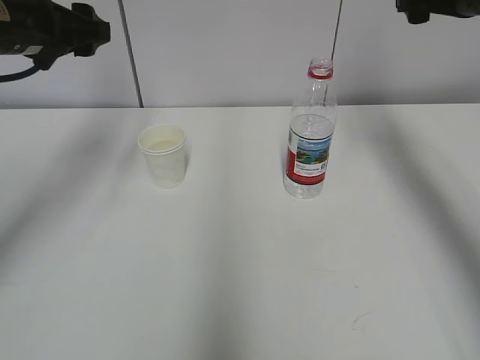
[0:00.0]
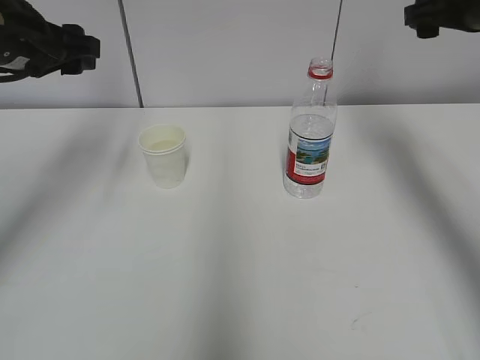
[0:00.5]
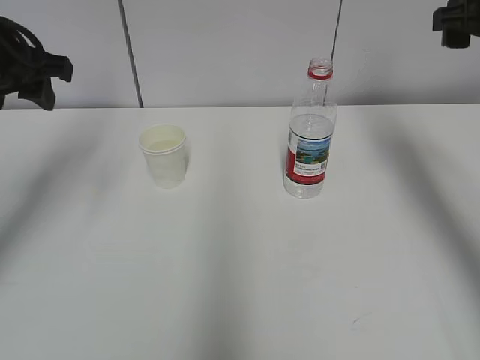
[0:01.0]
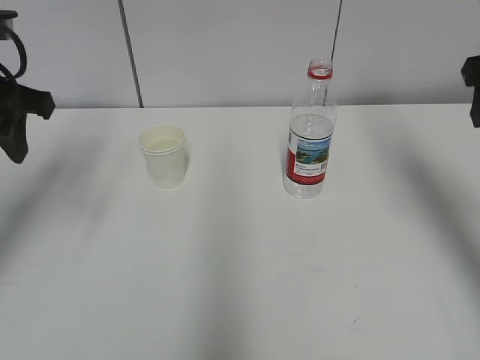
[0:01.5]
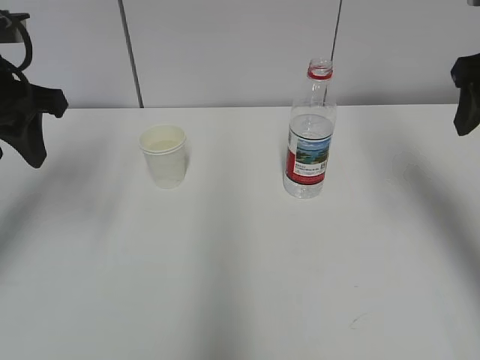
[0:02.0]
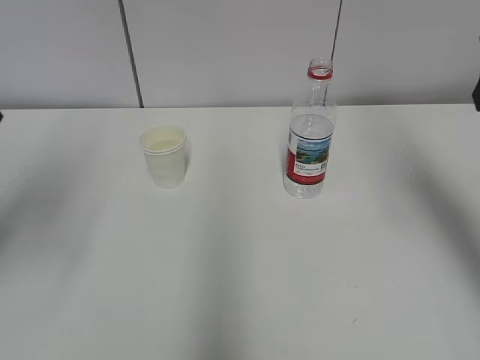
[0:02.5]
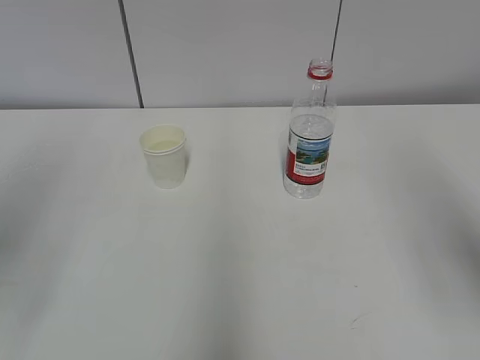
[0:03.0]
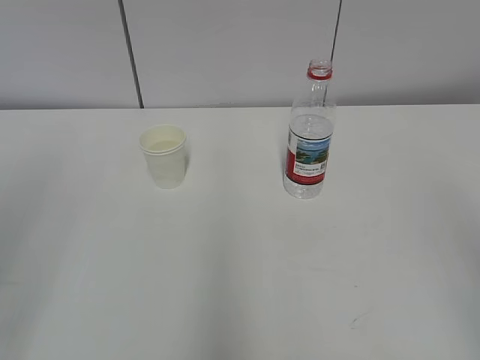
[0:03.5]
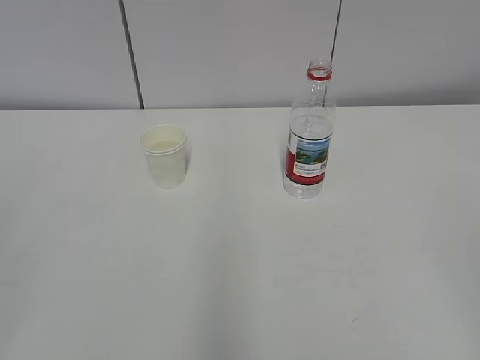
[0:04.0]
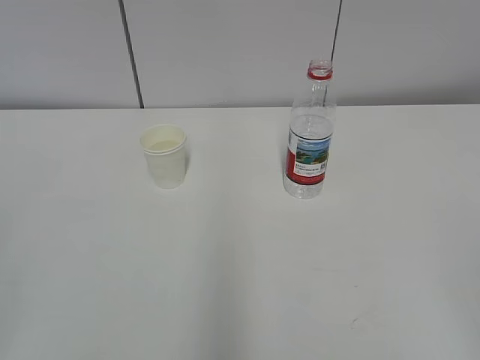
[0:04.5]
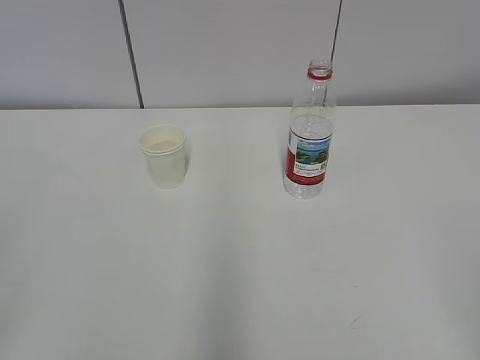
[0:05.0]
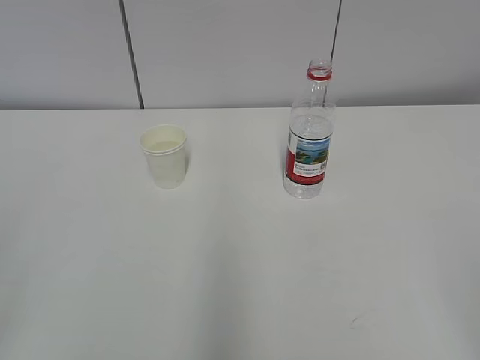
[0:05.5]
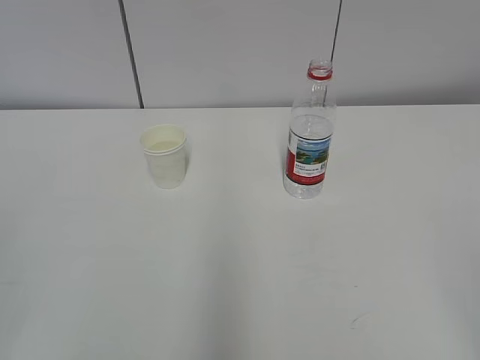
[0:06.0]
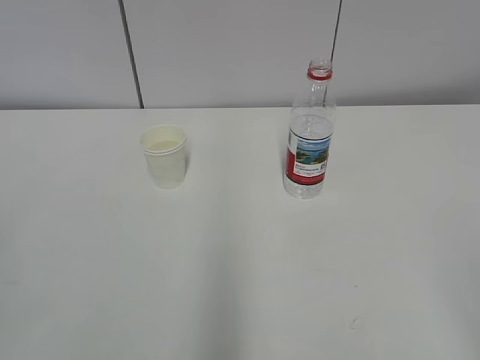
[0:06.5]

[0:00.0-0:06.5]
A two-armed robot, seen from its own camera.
0:00.0 to 0:02.0: The right gripper goes some 10 cm backward. The left gripper travels backward by about 5 cm, and closes up.
0:02.0 to 0:04.5: Both grippers travel together backward, about 35 cm.

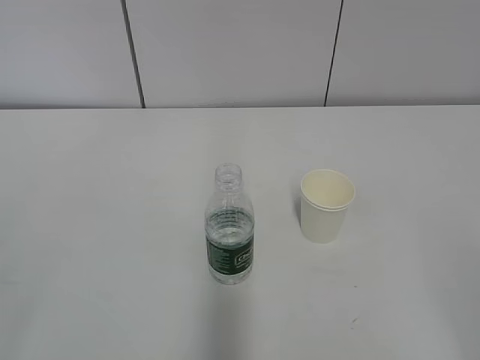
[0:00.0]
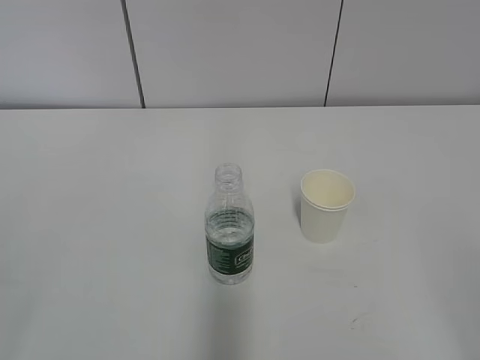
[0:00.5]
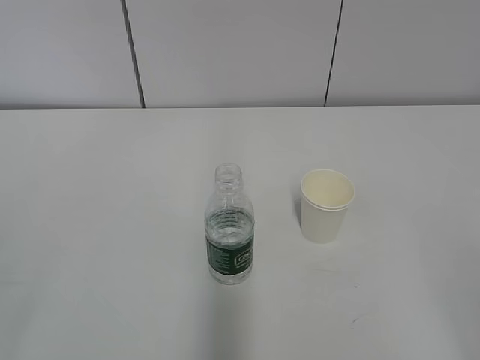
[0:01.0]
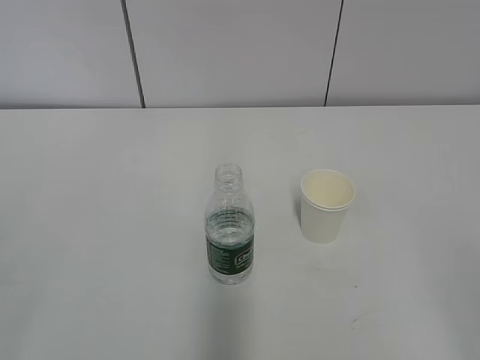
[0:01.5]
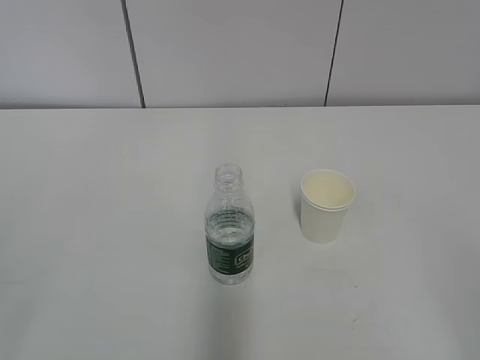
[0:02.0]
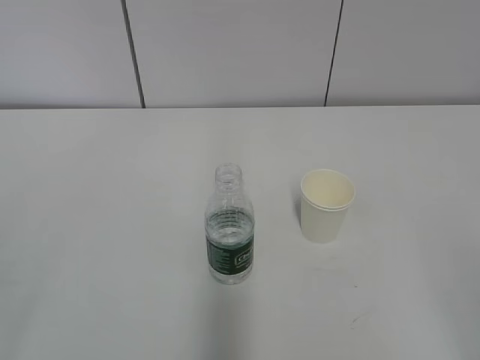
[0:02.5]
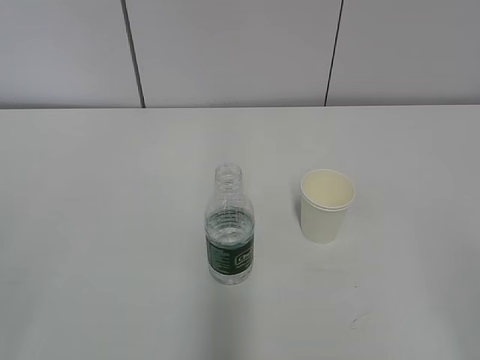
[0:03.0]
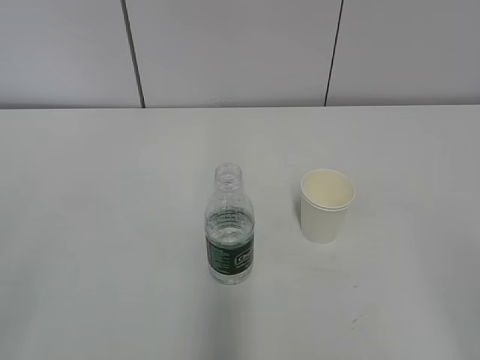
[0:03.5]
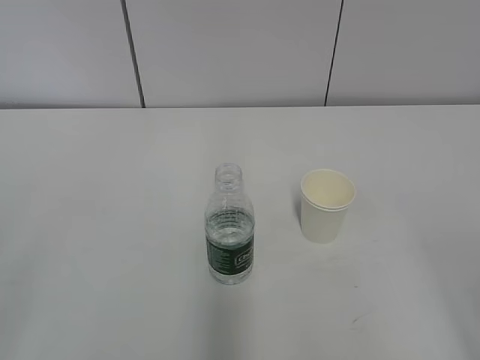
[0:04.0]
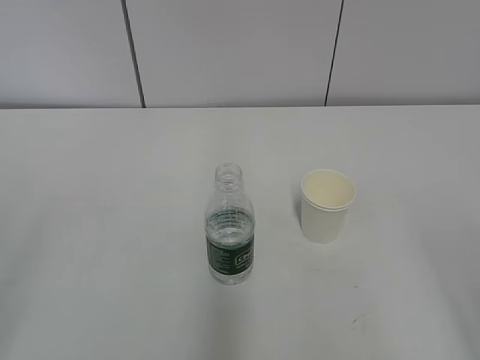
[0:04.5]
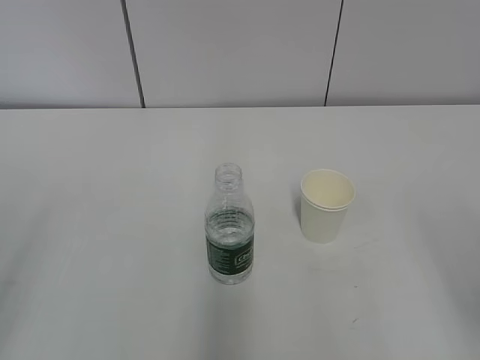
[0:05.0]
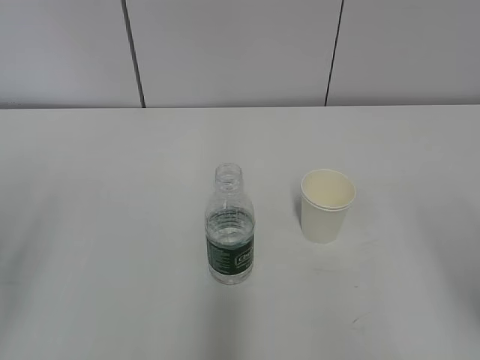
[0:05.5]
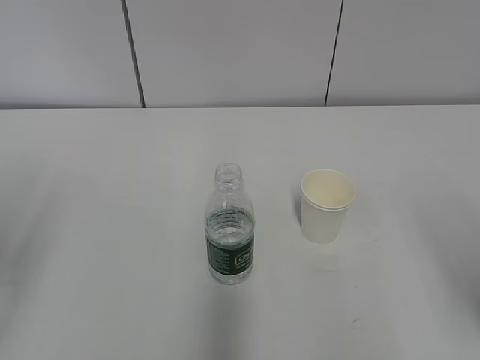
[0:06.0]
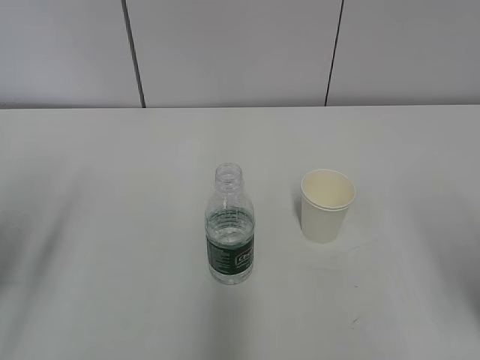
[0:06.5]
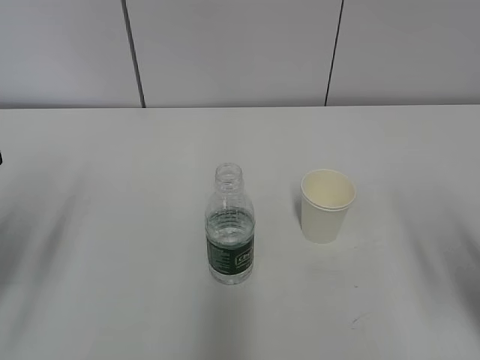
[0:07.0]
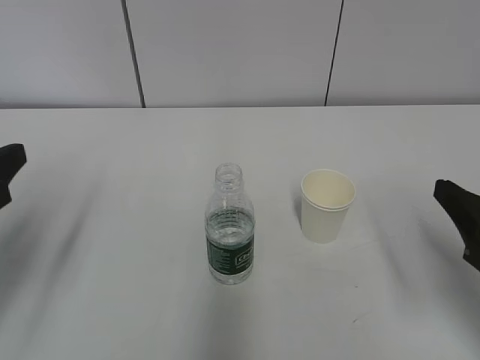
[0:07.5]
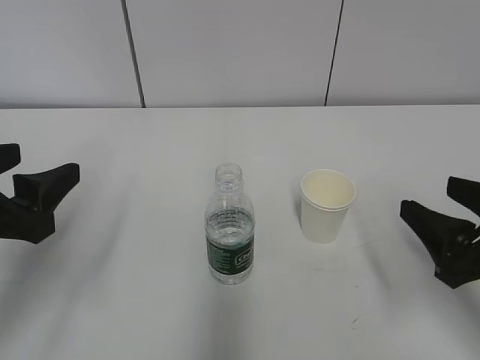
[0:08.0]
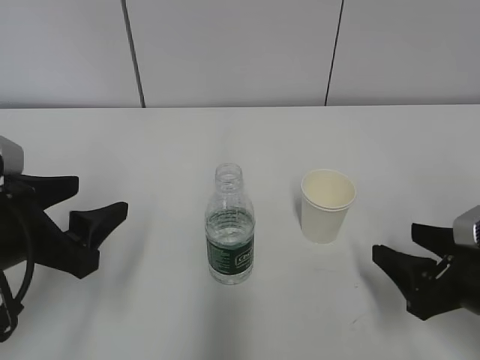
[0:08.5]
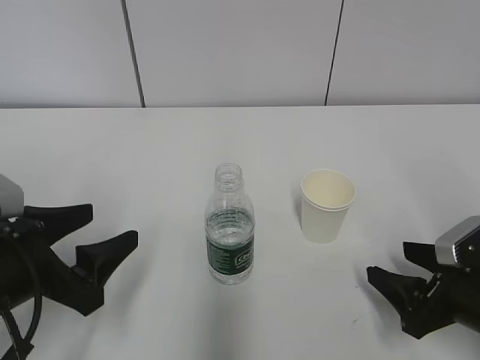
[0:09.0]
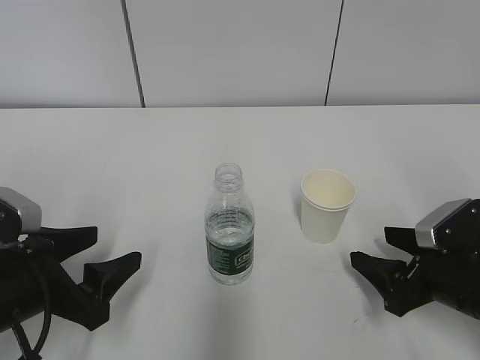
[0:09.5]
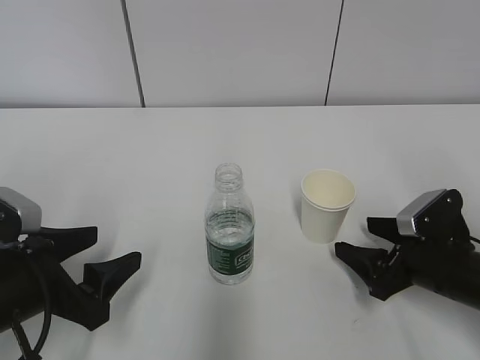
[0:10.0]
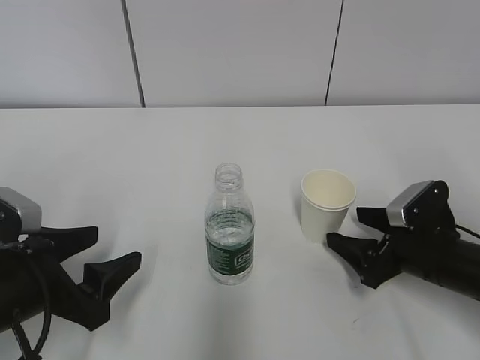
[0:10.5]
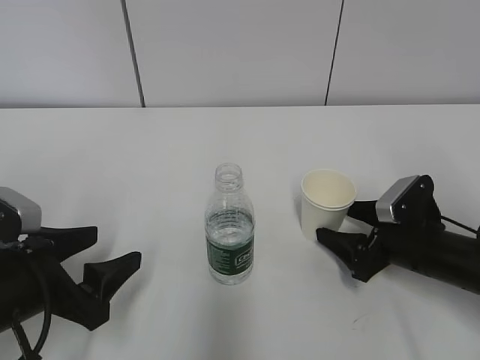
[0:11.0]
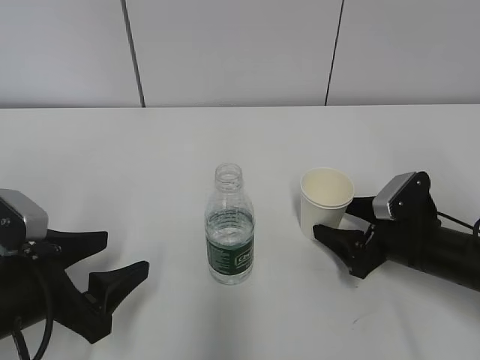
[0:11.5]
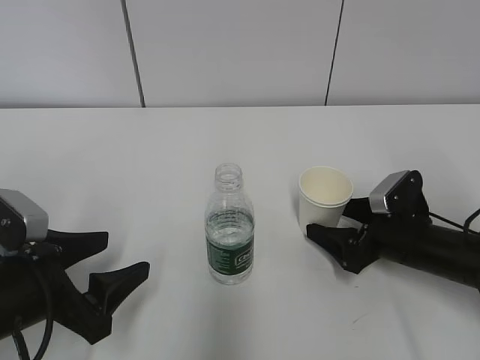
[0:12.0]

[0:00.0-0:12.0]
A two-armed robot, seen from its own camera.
0:06.0 to 0:08.0: The left gripper moves to the right, some 5 cm. The right gripper moves forward and downward, roughly 10 cm.
0:08.0 to 0:10.0: The left gripper is displaced downward by approximately 10 cm. The right gripper is displaced downward and forward by approximately 15 cm, and opens.
0:10.0 to 0:12.0: The right gripper shifts some 5 cm forward.

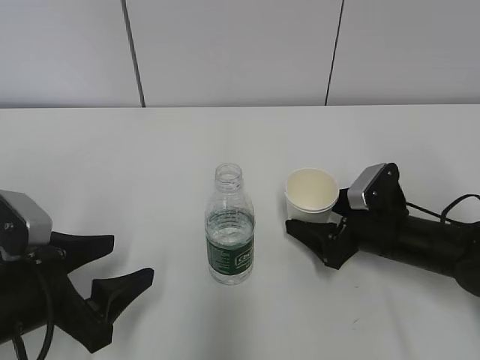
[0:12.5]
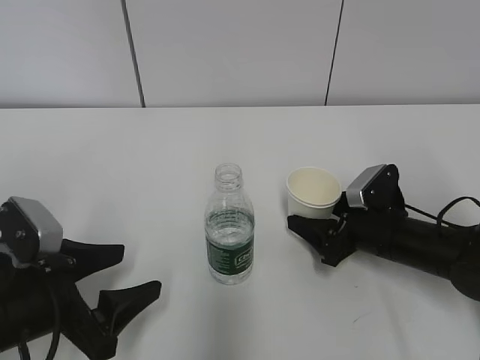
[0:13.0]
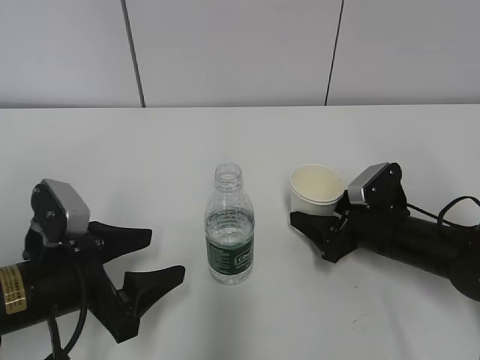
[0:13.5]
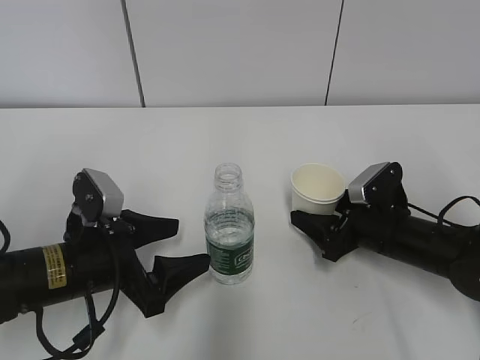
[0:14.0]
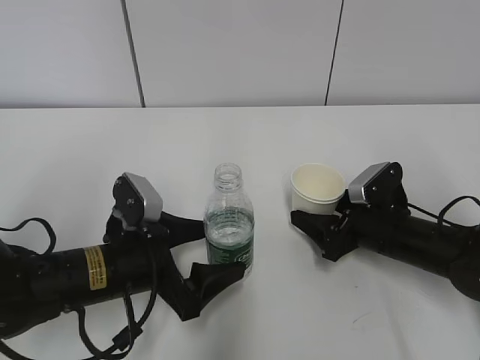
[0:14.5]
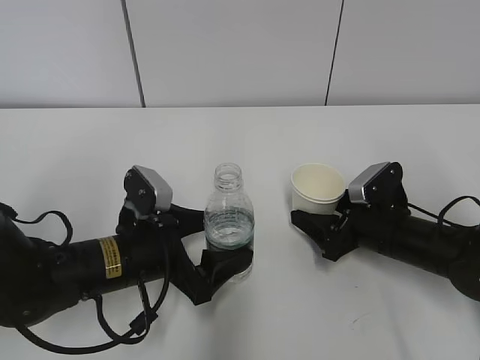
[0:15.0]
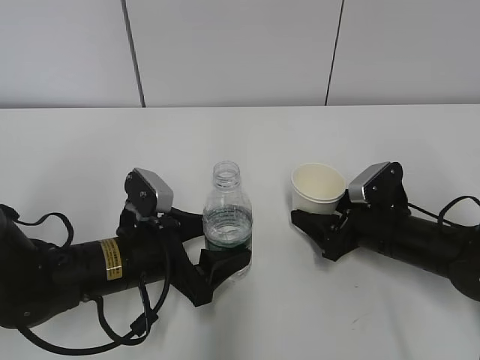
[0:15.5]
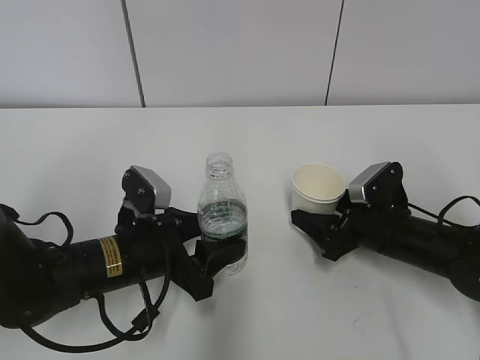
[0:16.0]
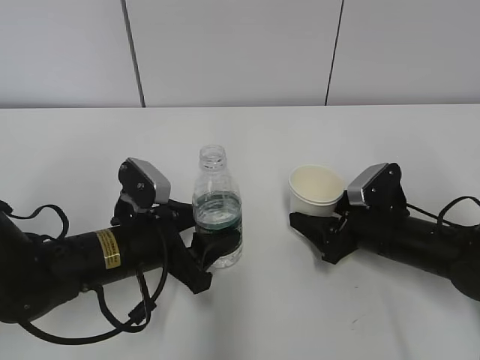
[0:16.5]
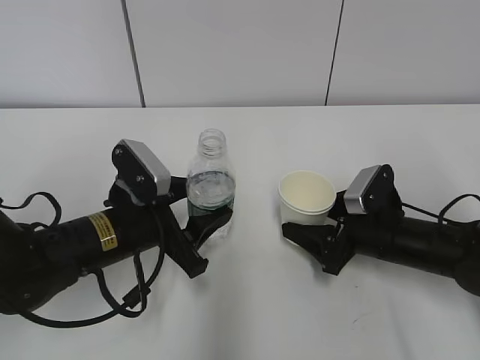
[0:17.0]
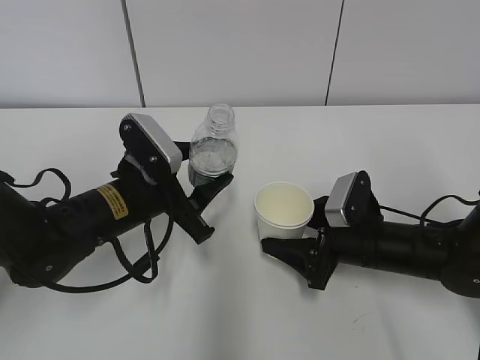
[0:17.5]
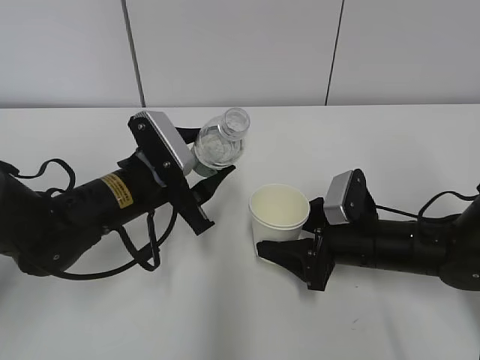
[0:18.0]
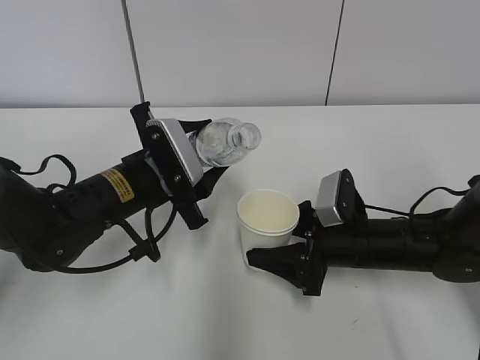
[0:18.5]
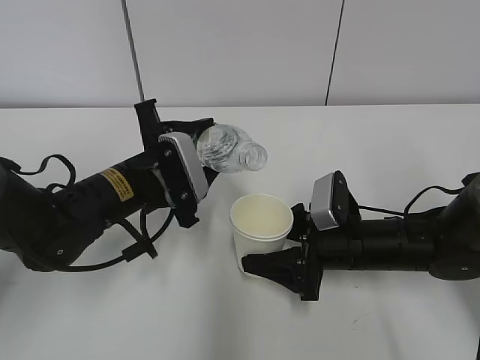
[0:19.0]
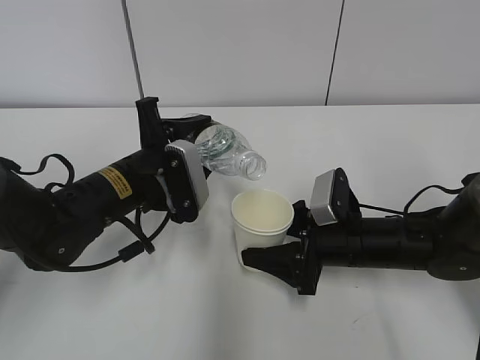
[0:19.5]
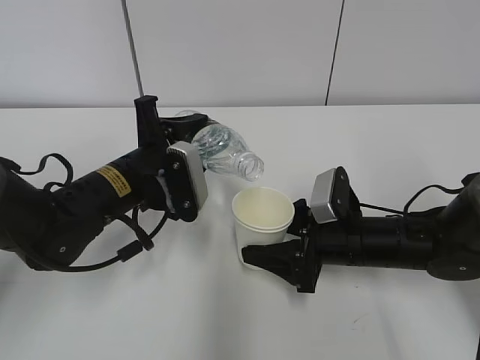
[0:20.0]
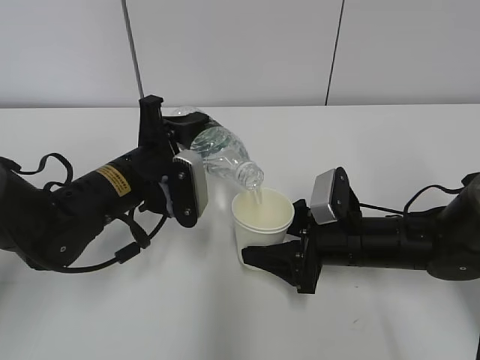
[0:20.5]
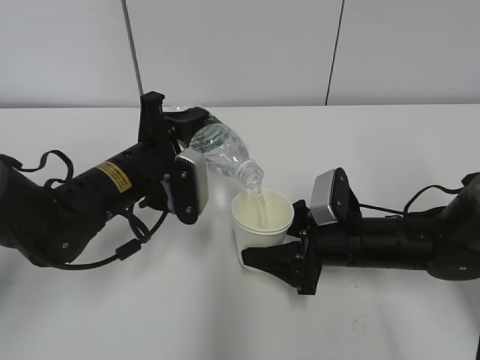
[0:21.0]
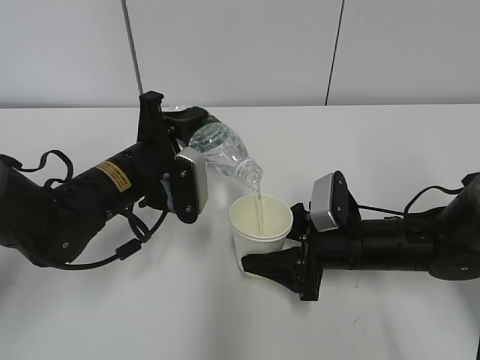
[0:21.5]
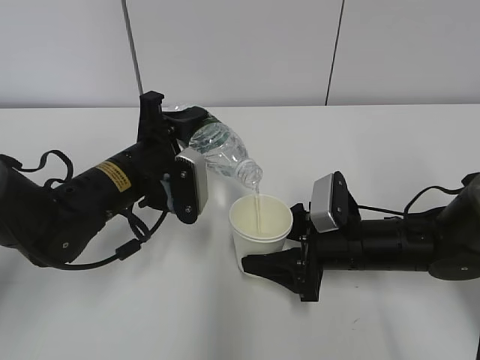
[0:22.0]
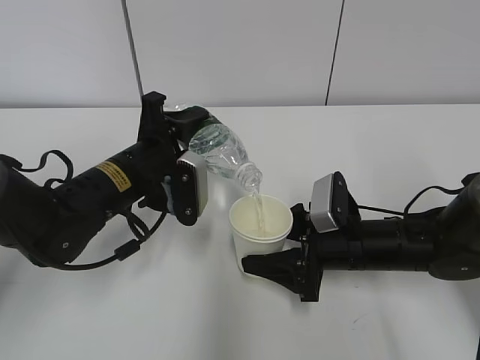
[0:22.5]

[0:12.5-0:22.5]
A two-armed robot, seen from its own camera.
Step, 0:14.5 to 0:17.0: Lift the paper cup with the right hand.
Step, 0:17.5 to 0:20.5: Fill water with the right hand.
Step, 0:17.5 to 0:20.5: Pour water with the left hand.
0:12.5 to 0:14.5: The right gripper closes. Meanwhile the left gripper is displaced to the right and forward by roughly 10 cm.
0:14.5 to 0:16.5: The left gripper closes up.
0:16.5 to 0:18.5: The right gripper shifts by about 5 cm. Meanwhile the left gripper is displaced upward by approximately 5 cm.
0:20.5 to 0:22.5: There are only small adjustments of the grippers.
